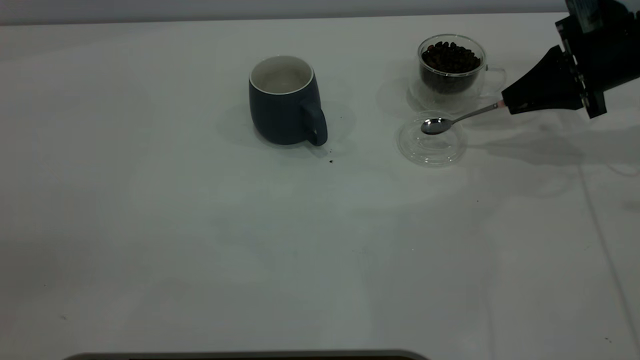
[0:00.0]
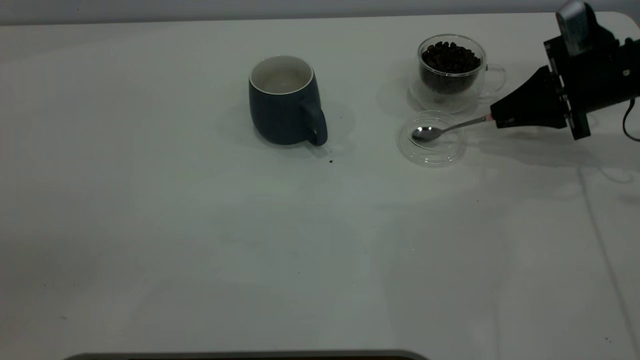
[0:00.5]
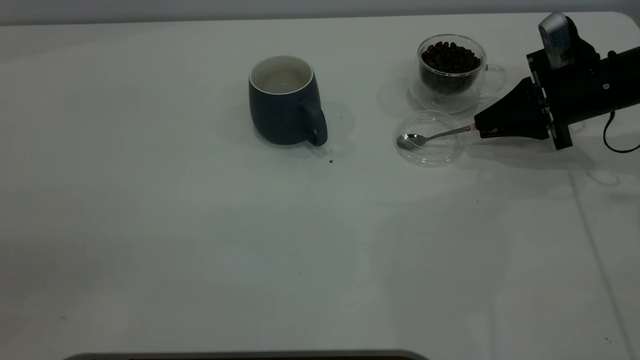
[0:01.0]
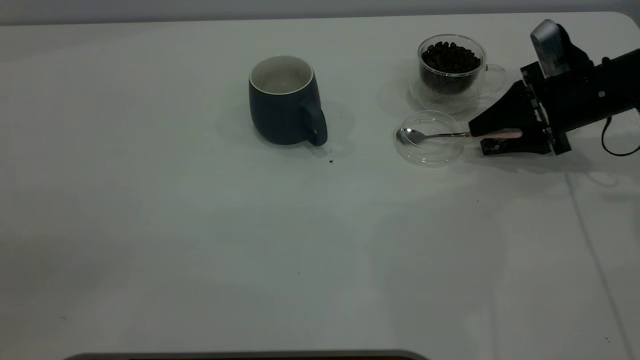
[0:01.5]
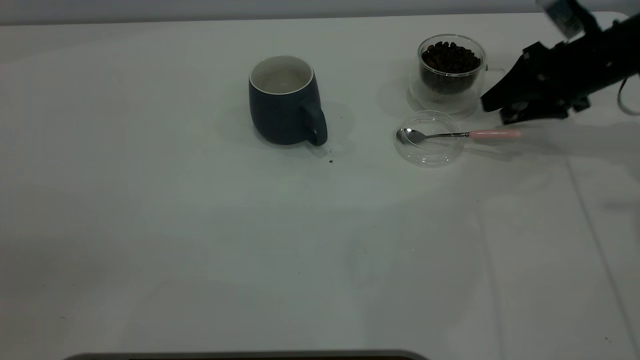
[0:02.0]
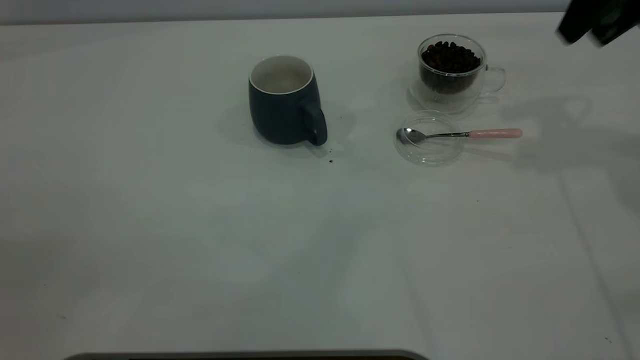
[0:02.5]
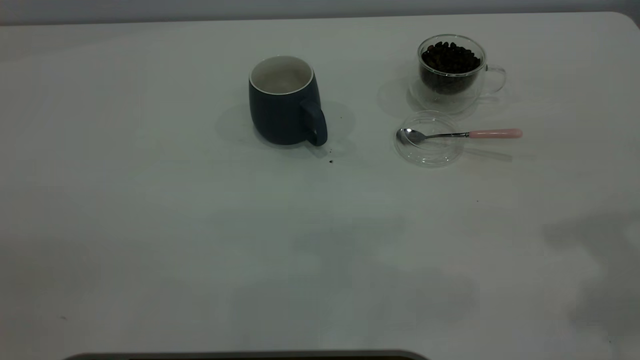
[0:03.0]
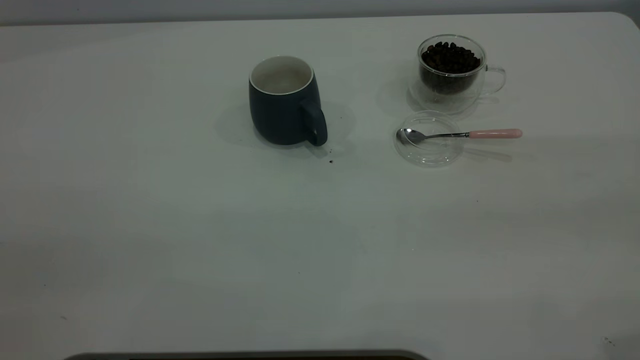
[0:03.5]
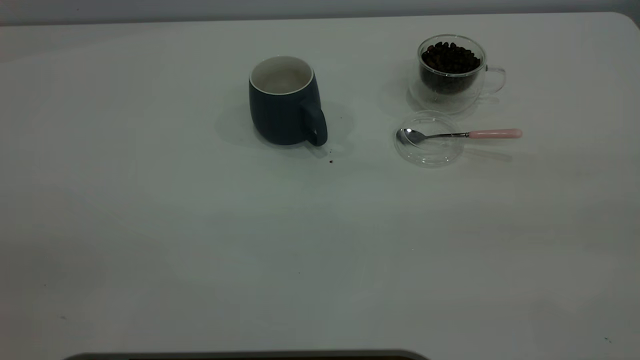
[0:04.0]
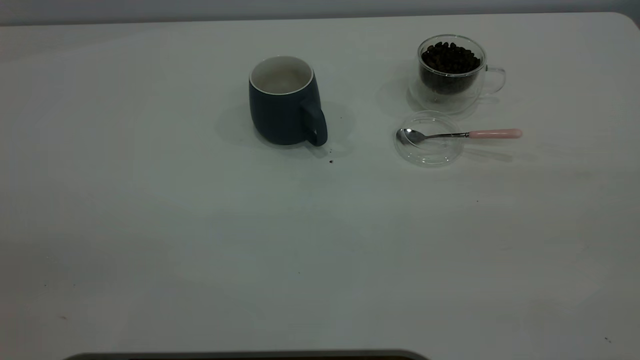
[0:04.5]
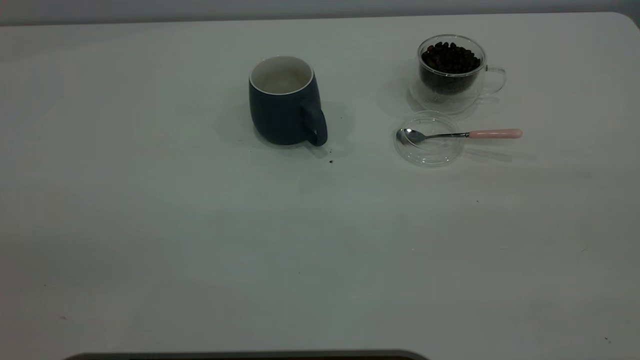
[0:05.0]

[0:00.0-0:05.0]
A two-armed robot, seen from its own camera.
Task of the whole recording: the left gripper place the grey cup in the center of the table, the right gripper take the pink spoon from the cup lid and scoop out the coffee beans from the coffee cup and put them into the grey cup, the right gripper put the spoon back into the cup lid.
Step, 0:00.0 to 0:02.0: Place the spoon back in its original place.
0:00.0 to 0:02.5: The right gripper goes approximately 15 cm upward, and opens.
0:02.5 to 0:05.0: The right gripper shifts roughly 40 cm backward.
